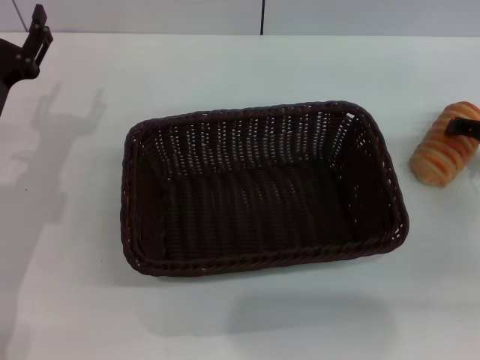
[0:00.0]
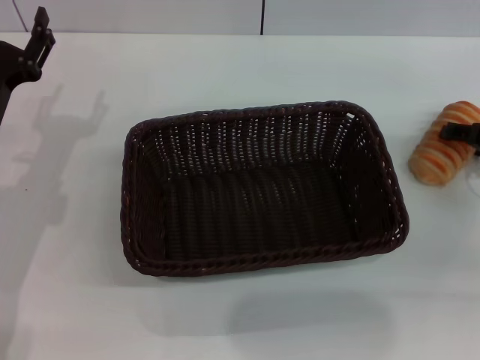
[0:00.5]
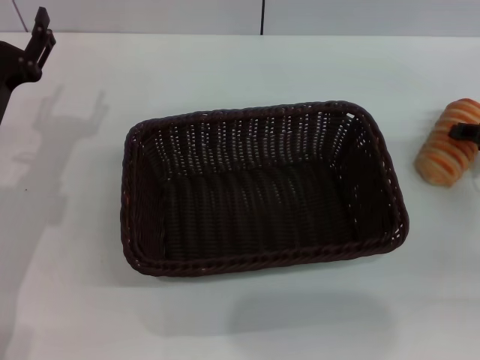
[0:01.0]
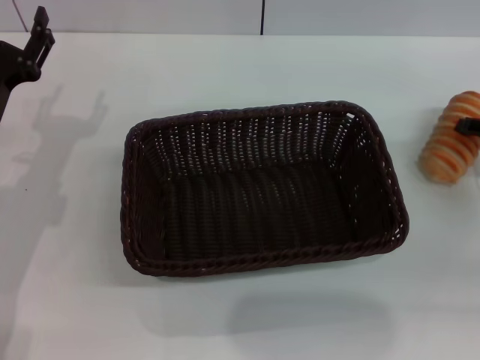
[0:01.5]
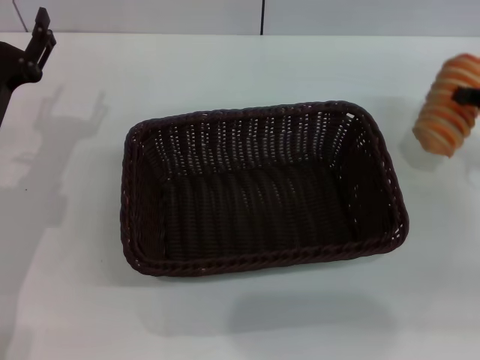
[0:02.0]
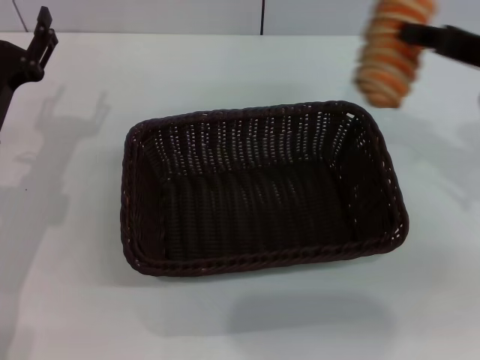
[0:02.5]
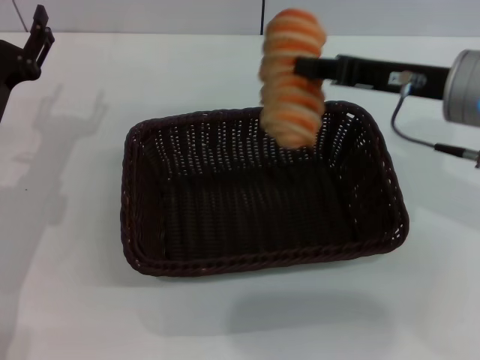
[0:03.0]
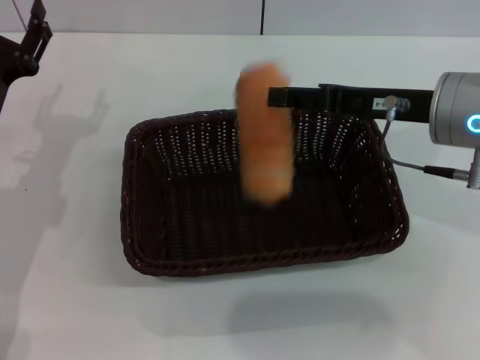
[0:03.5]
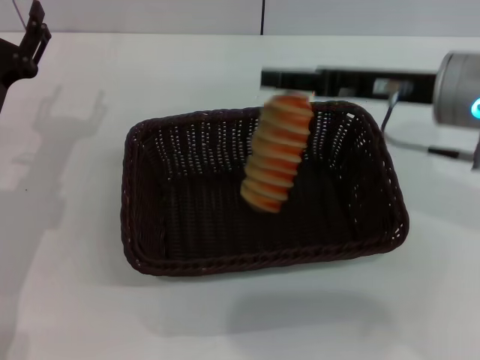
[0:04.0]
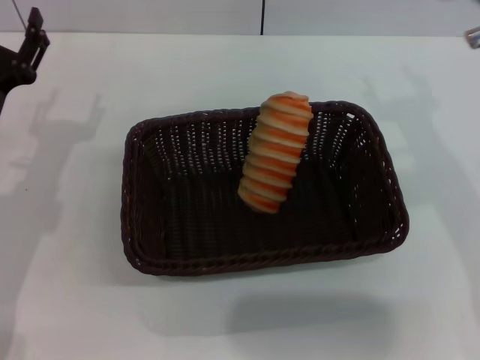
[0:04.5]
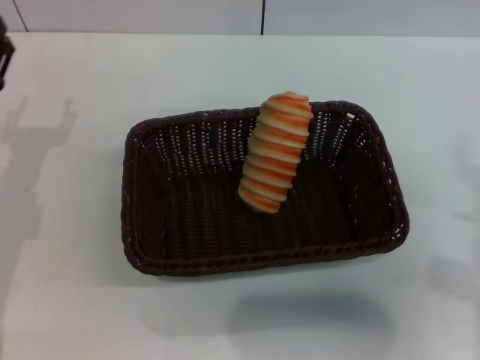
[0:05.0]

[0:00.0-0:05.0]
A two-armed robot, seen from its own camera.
Step, 0:01.5 to 0:04.0: Place the long bread in the basket with right gripper.
0:00.0 to 0:02.5: The right gripper travels upward and to the left by roughly 10 cm, and closes.
0:02.5 to 0:05.0: The right gripper is displaced backward and downward by about 15 cm, and opens its fingers.

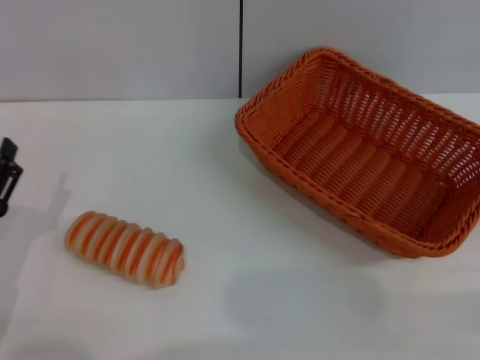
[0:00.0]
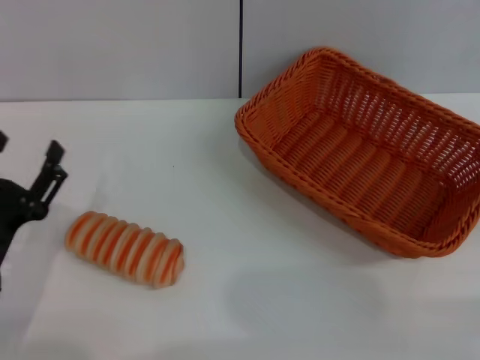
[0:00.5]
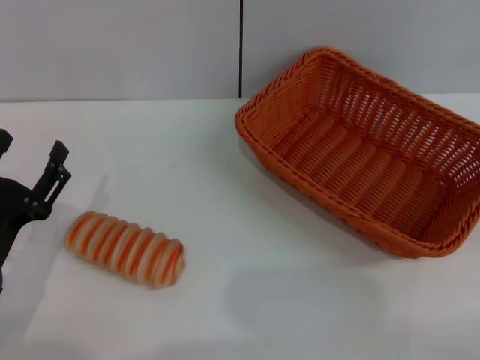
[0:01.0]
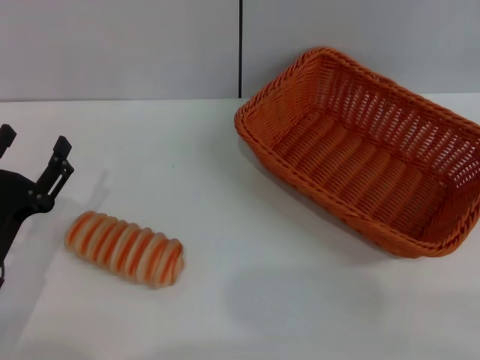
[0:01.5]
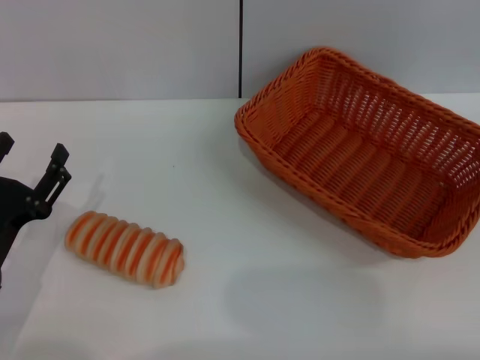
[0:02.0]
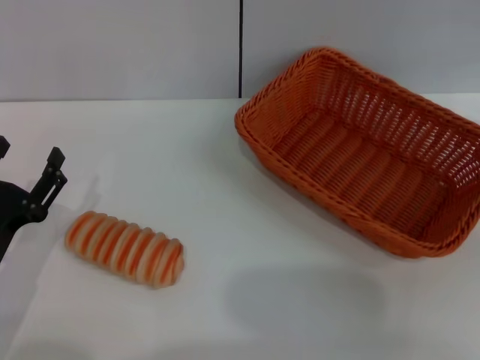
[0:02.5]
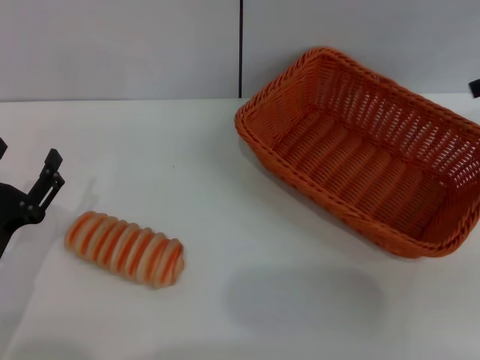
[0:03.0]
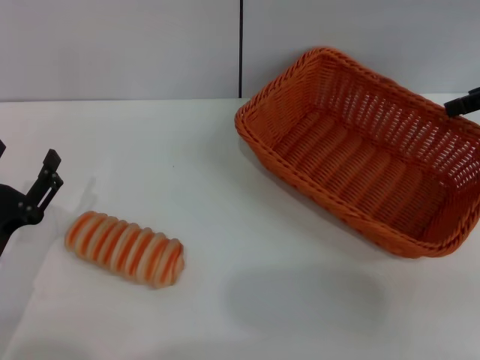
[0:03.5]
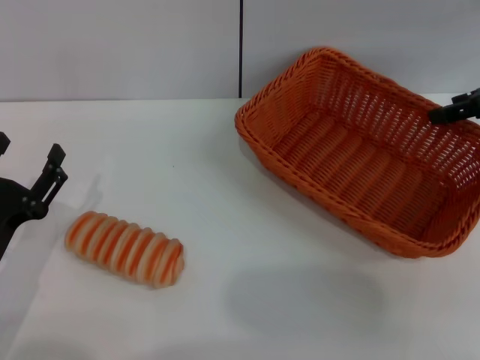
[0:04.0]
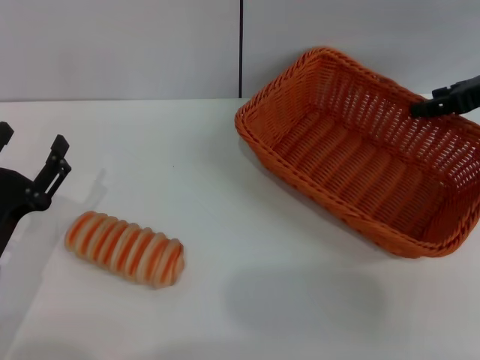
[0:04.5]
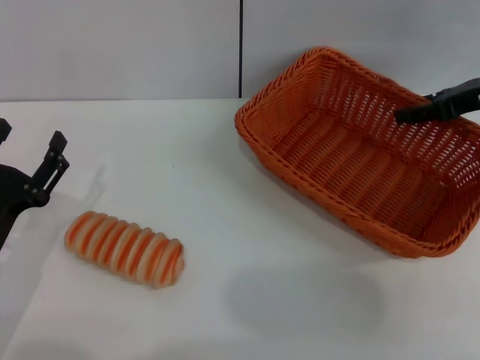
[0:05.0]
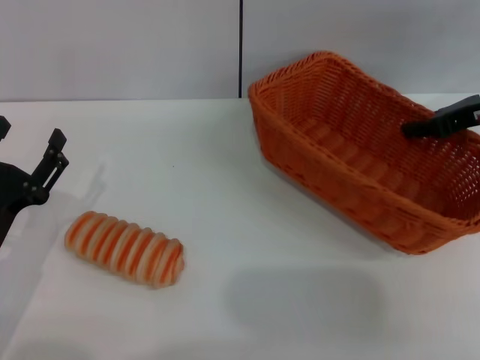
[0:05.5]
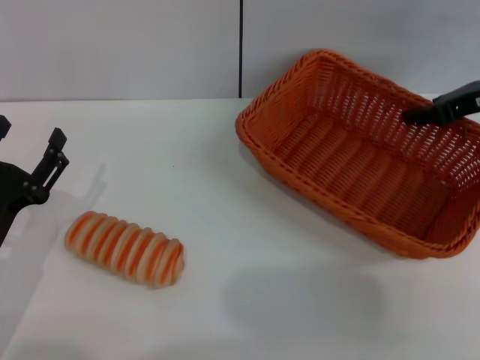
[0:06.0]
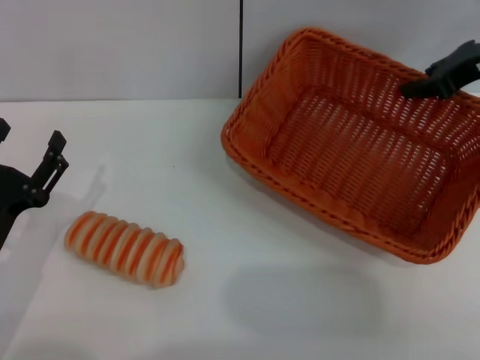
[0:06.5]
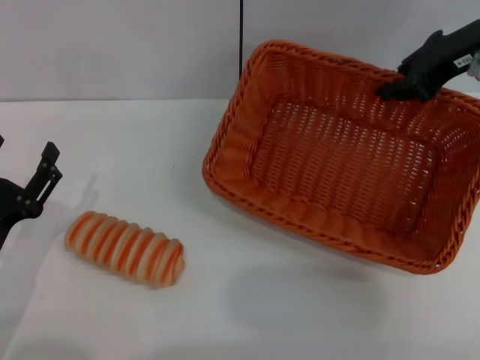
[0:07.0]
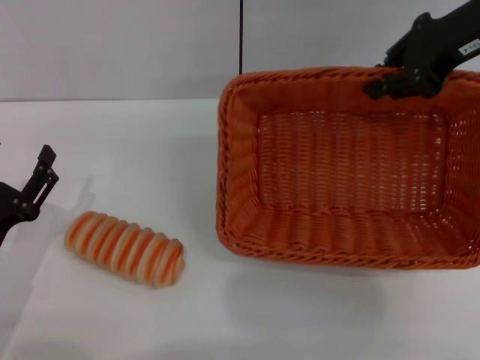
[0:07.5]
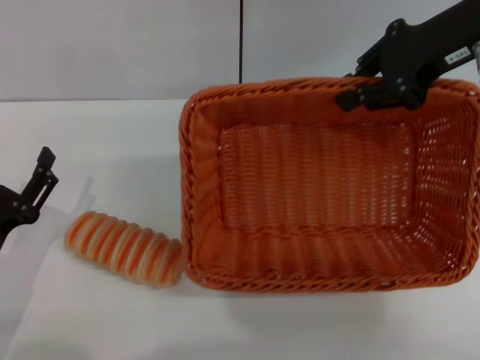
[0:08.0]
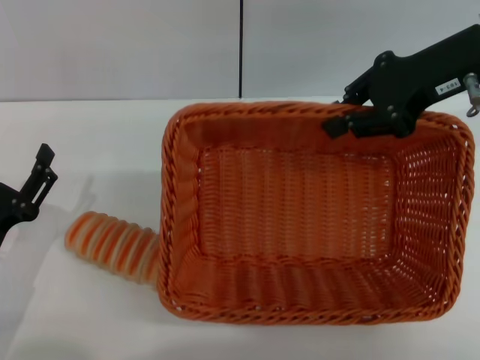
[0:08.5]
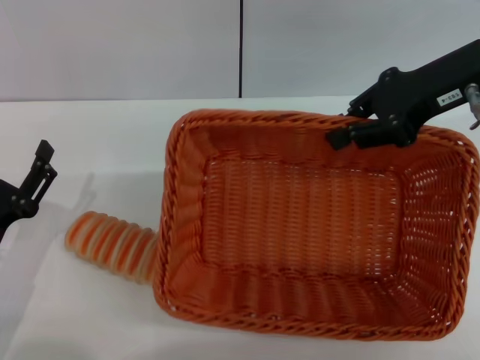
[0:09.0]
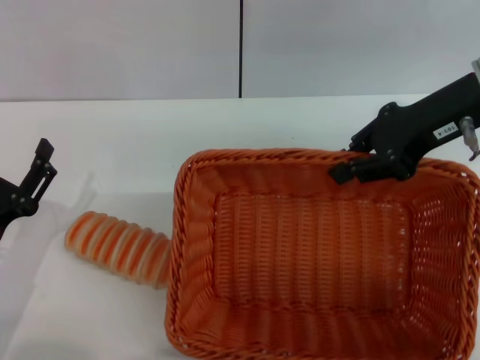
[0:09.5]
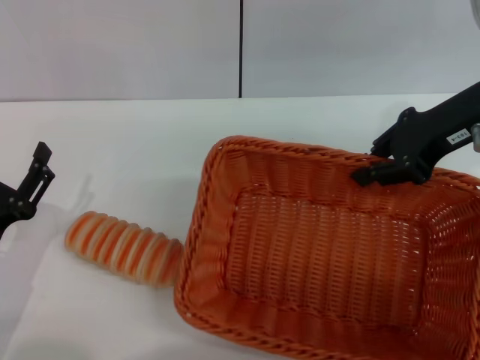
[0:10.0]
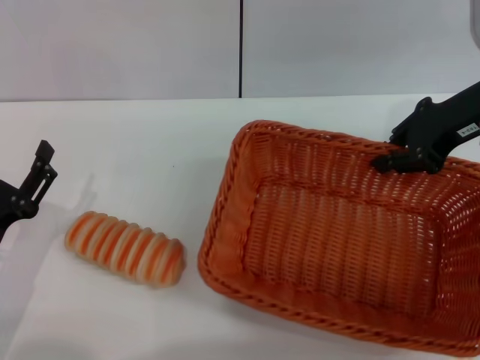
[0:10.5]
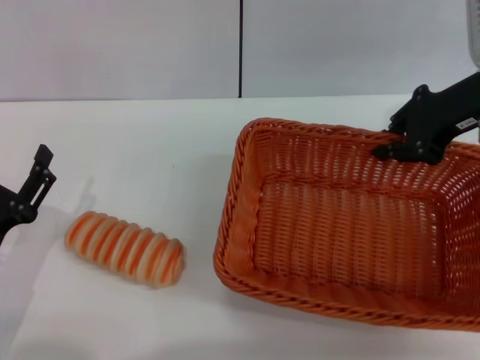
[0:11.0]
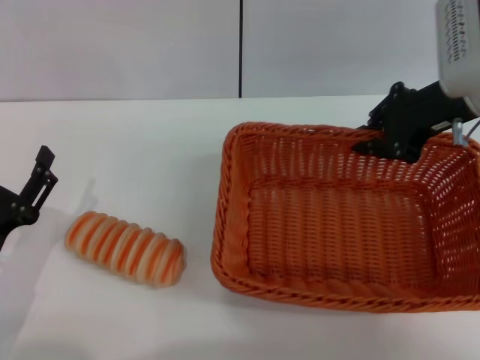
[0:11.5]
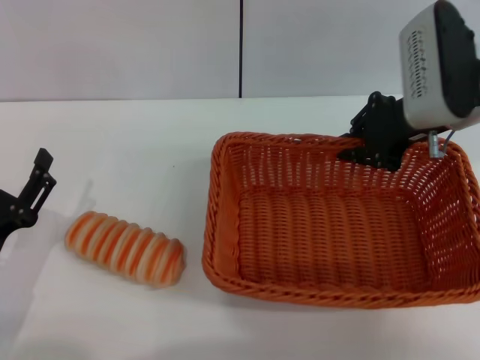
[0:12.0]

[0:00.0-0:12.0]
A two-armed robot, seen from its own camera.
Step, 0:00.0 to 0:06.0: Pick up the light basket with the right gripper.
0:02.0 to 0:04.0: The right gripper heads to the left, forward and downward, covering some 20 cm.
0:04.0 to 0:06.0: The right gripper closes its fingers.
0:06.0 to 0:08.0: The right gripper moves upward and to the left, some 15 cm.
0:08.0 to 0:10.0: The right gripper is displaced downward by about 5 cm.
0:10.0 to 0:12.0: The right gripper changes place by approximately 5 cm.

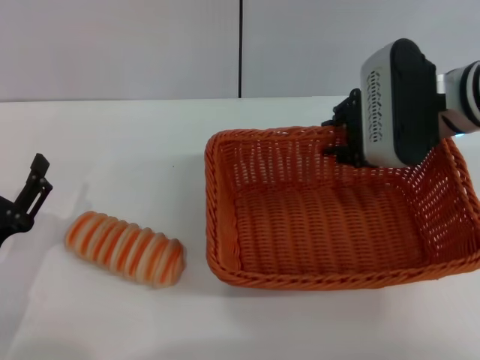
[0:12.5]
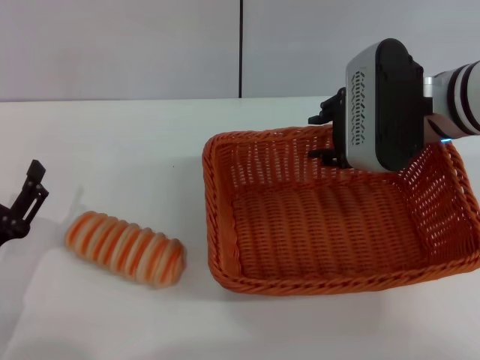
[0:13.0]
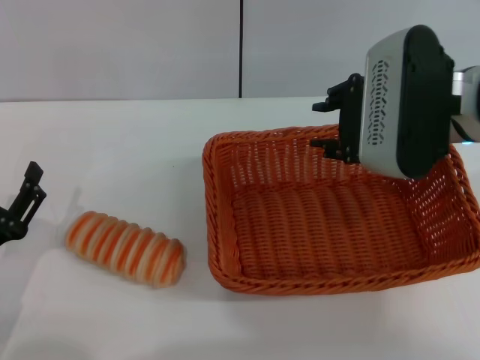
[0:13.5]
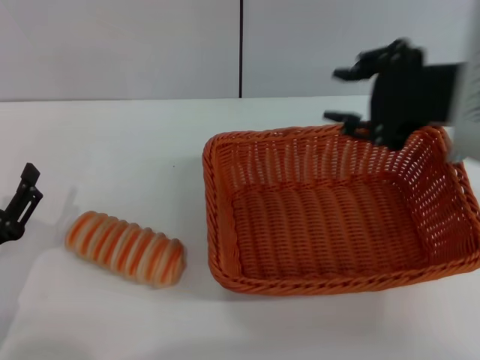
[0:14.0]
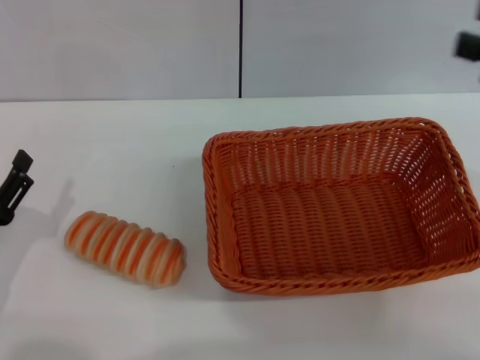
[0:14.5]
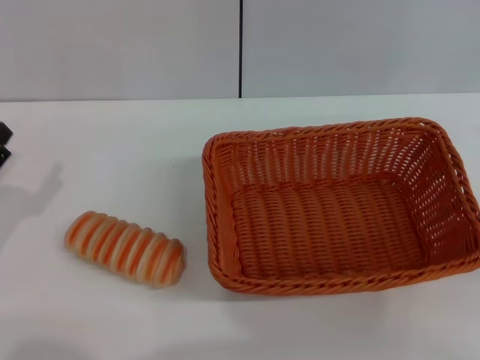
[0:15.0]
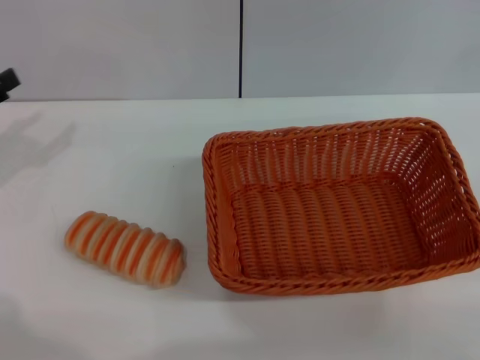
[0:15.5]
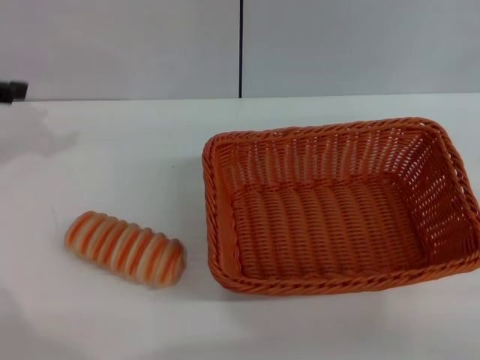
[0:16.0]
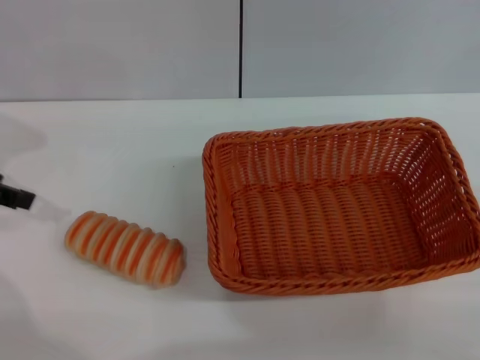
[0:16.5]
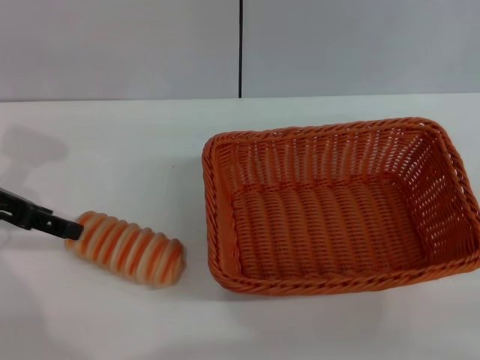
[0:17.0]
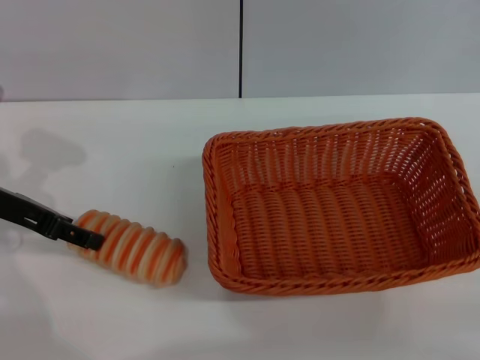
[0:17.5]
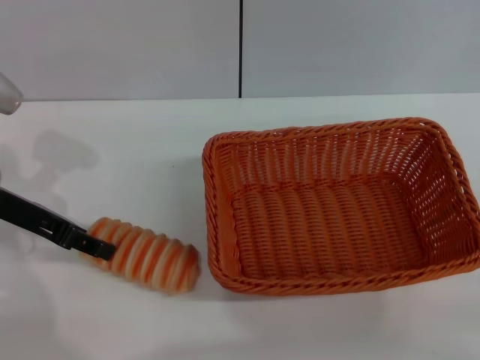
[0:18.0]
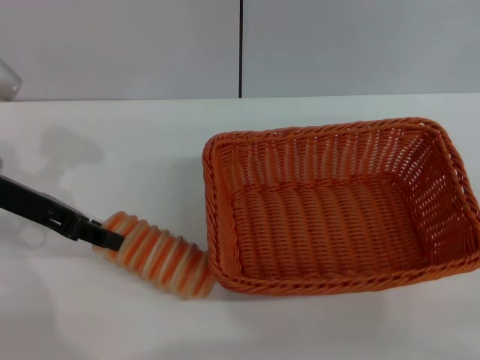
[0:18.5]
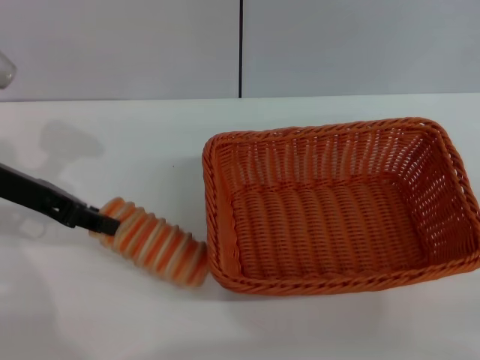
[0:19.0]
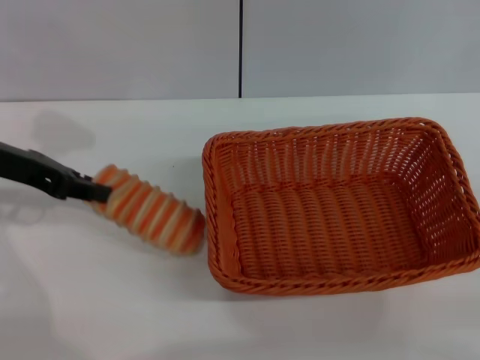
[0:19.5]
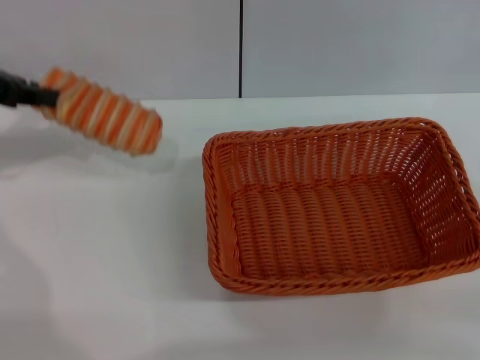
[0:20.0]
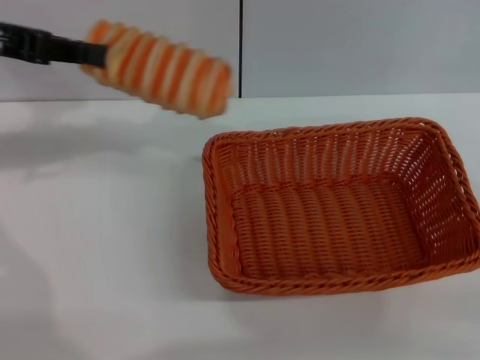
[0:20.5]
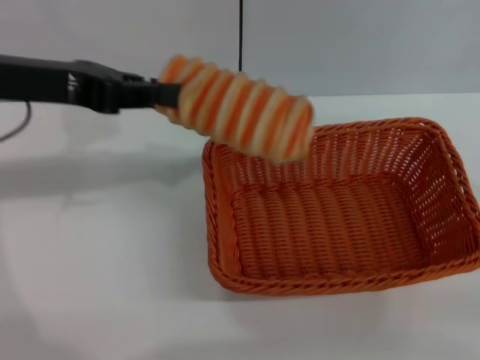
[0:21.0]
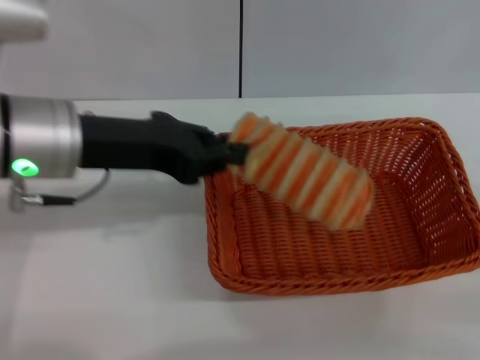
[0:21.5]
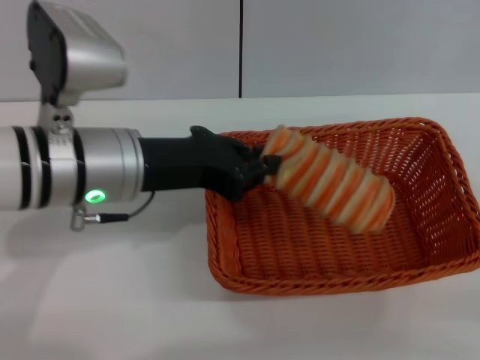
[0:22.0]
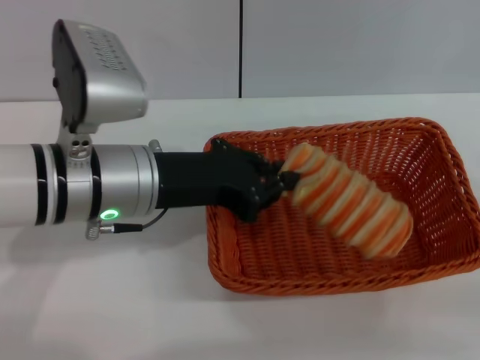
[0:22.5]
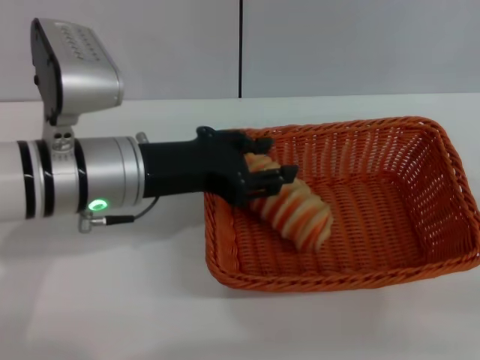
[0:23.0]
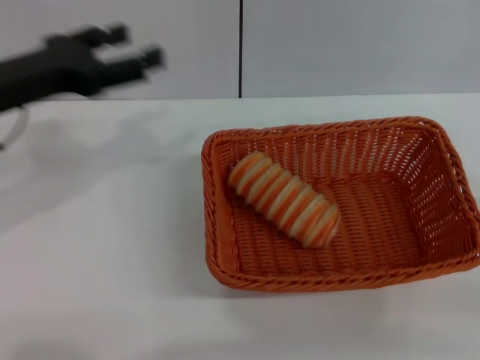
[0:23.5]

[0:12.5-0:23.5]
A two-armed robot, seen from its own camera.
Step, 0:14.0 to 0:20.0: Pick up the long bread with the left gripper.
Step, 0:20.5 to 0:23.0: Place the long bread into the light basket with the left gripper.
0:12.5 to 0:14.5: The right gripper heads to the right, backward and upward, covering roughly 20 cm, and opens.
0:14.5 to 0:16.0: The left gripper goes some 25 cm upward and forward.
0:16.0 to 0:18.0: The left gripper travels downward and to the right by roughly 10 cm.
0:18.0 to 0:20.0: The left gripper moves upward, some 10 cm, and closes.
0:20.0 to 0:21.5: The left gripper heads to the right and backward, covering some 15 cm.
0:21.5 to 0:23.5: The left gripper is displaced to the left by some 10 cm, and opens its fingers.
